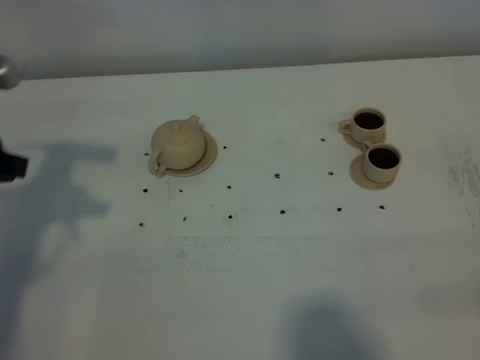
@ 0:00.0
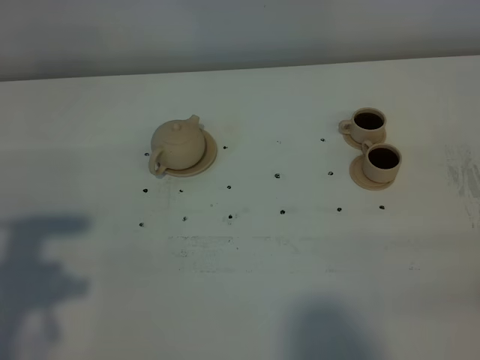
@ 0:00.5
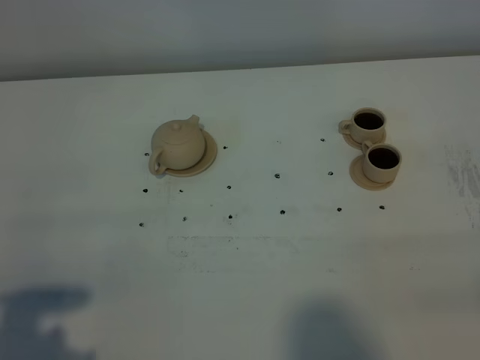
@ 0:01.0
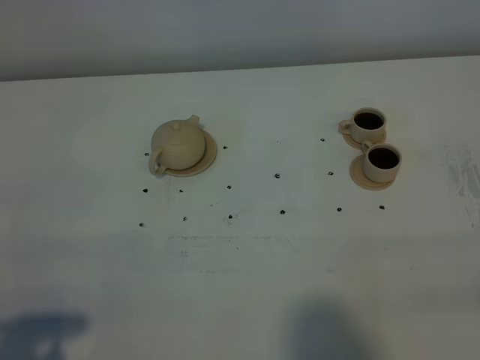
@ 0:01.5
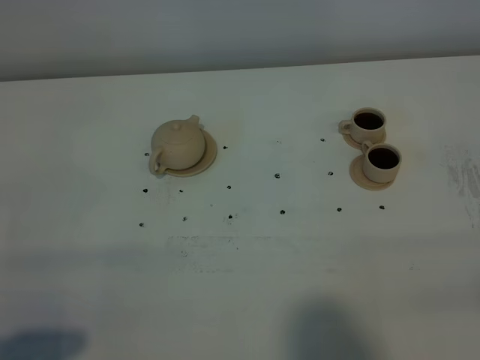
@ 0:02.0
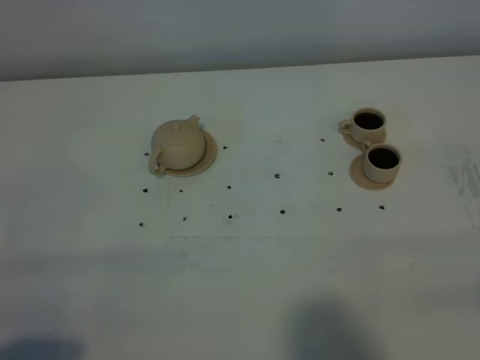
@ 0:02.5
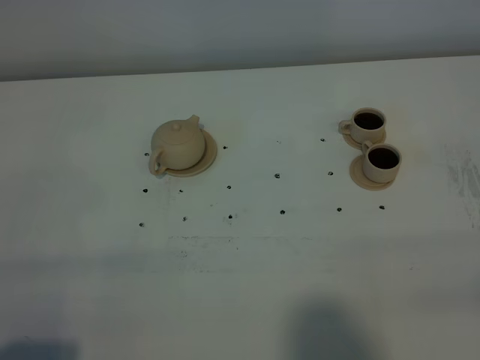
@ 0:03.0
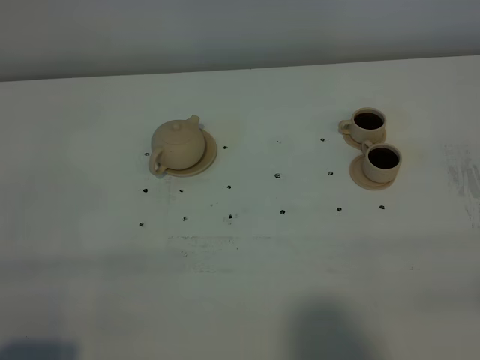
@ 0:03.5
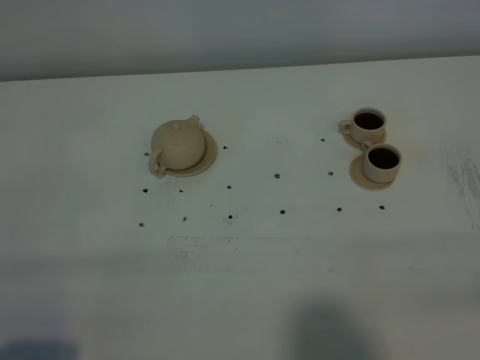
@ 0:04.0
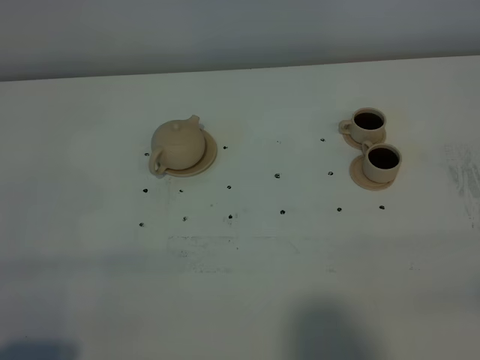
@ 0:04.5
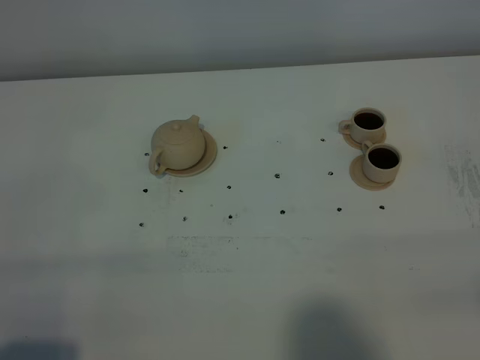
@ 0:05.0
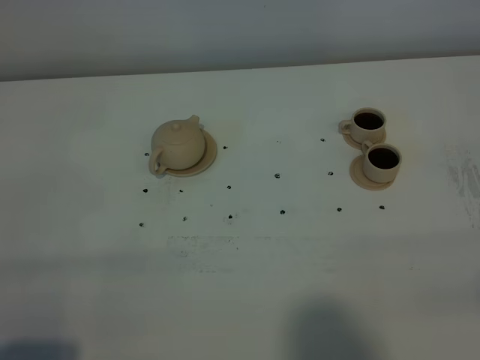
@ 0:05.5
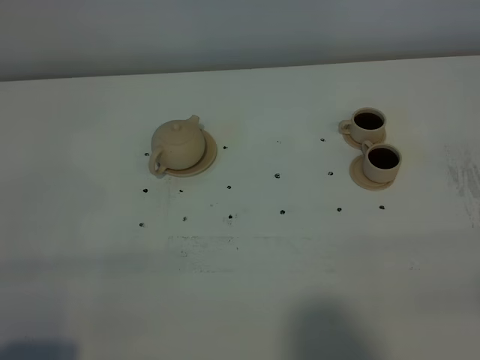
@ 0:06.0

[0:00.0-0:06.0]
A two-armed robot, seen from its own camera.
Task of the whole recording: grasp the brown teapot and pour the tea into the two brown teacups one by one, put the brown teapot back in its original place.
0:00.0 to 0:02.0: The left gripper moves backward, some 25 cm.
0:02.0 to 0:06.0: Neither gripper changes place.

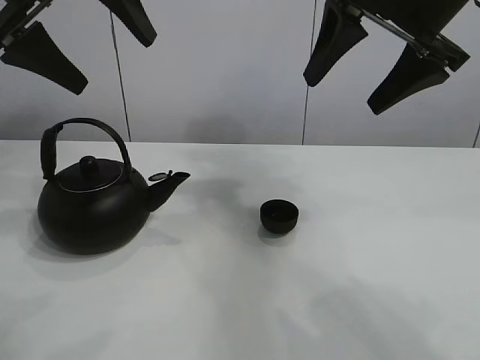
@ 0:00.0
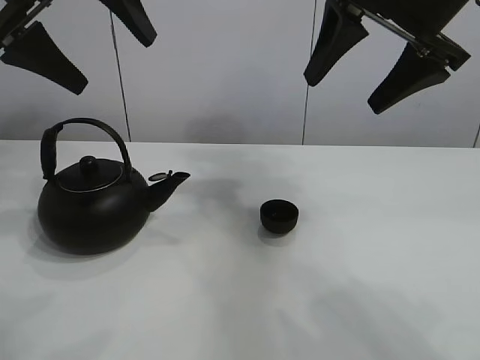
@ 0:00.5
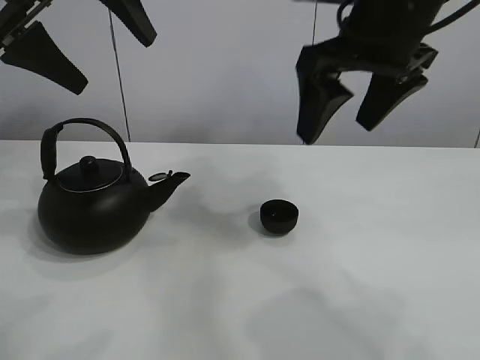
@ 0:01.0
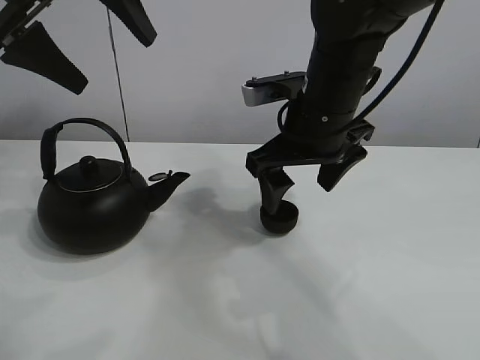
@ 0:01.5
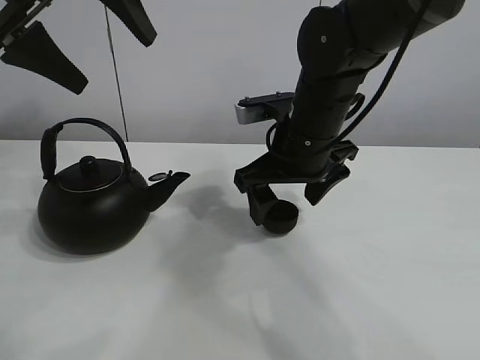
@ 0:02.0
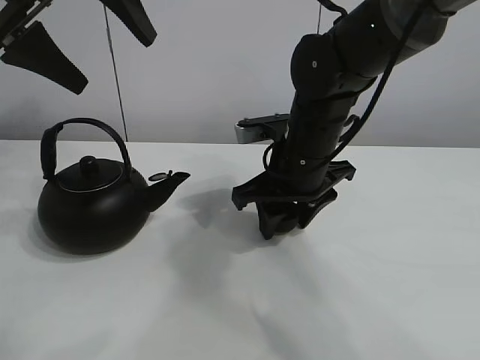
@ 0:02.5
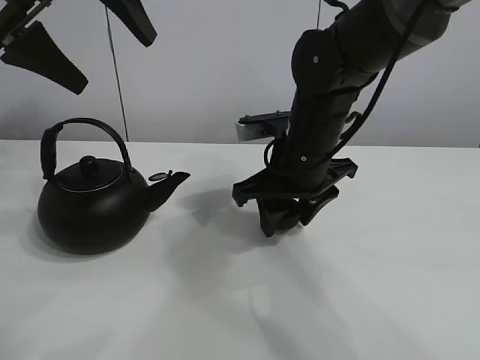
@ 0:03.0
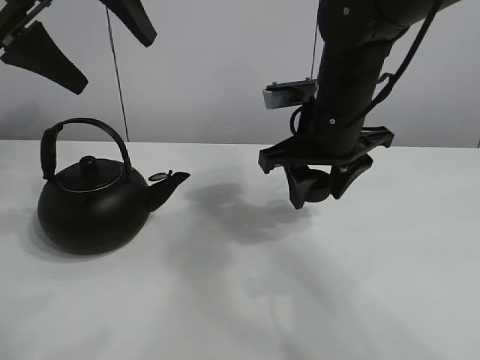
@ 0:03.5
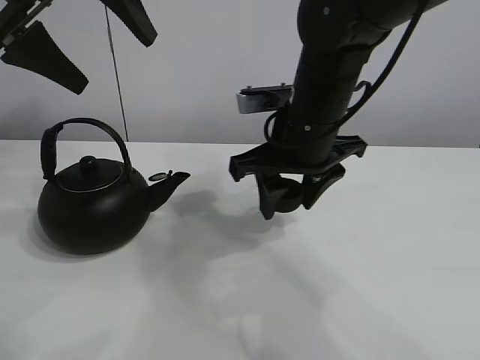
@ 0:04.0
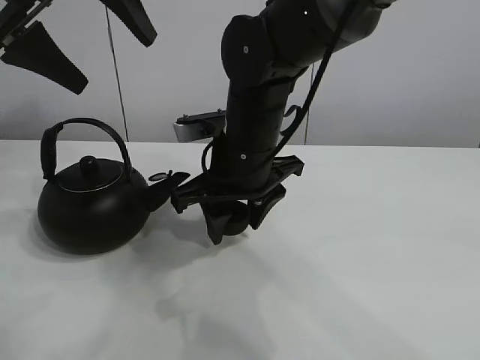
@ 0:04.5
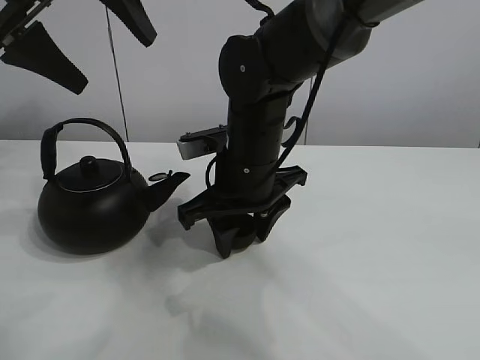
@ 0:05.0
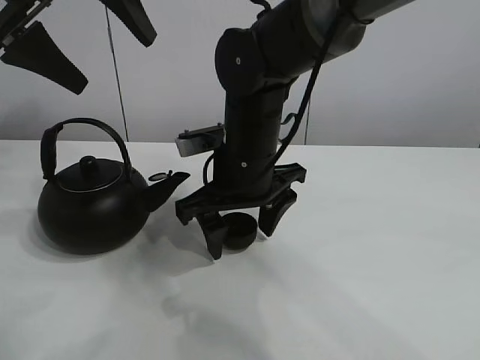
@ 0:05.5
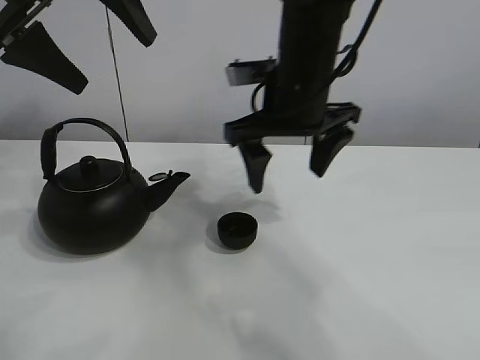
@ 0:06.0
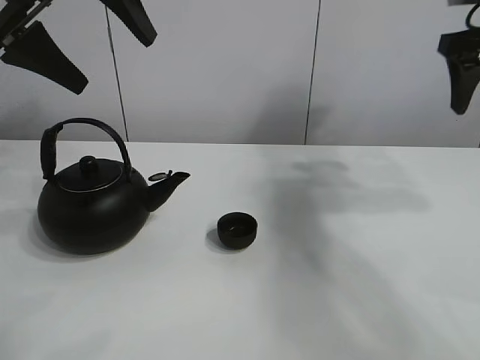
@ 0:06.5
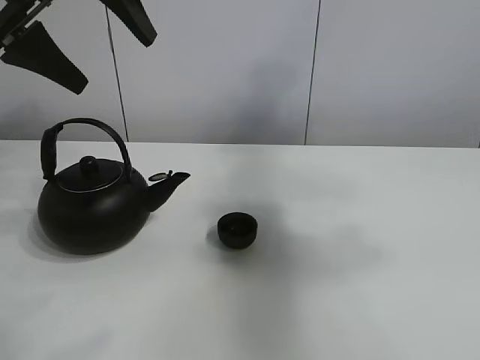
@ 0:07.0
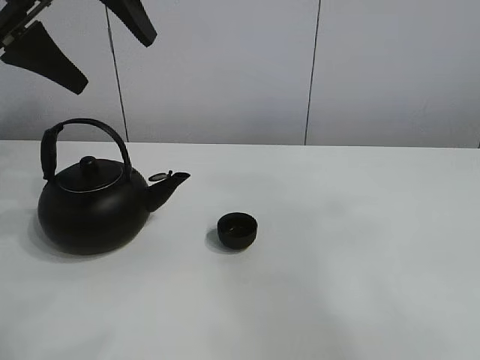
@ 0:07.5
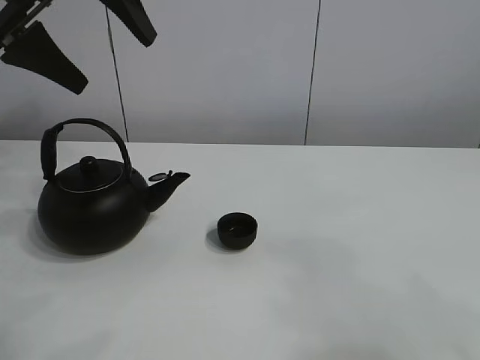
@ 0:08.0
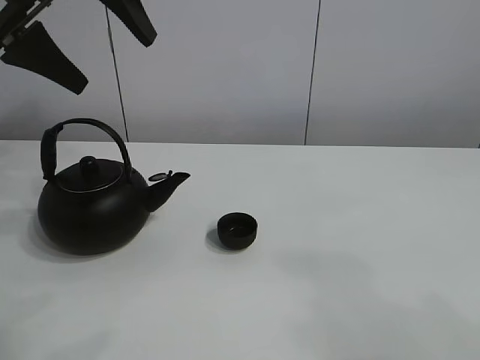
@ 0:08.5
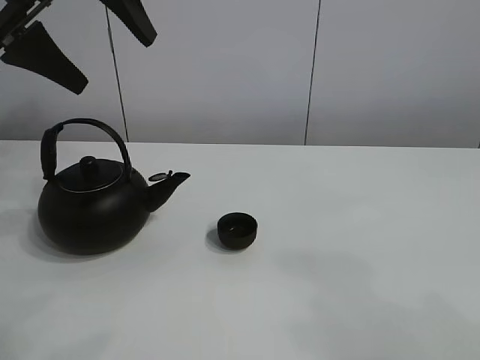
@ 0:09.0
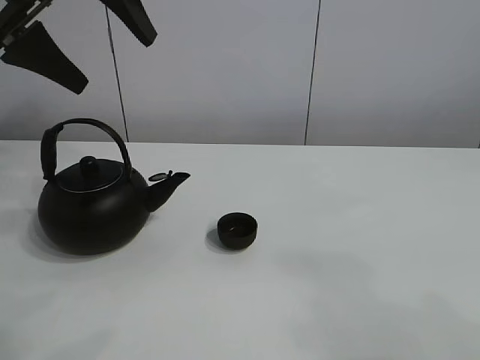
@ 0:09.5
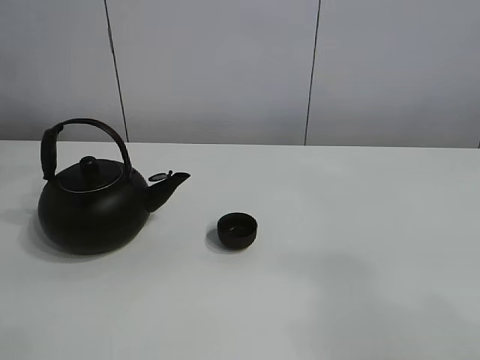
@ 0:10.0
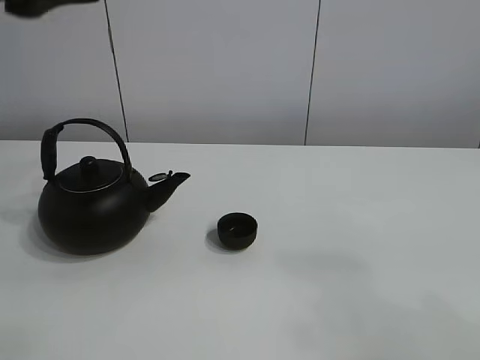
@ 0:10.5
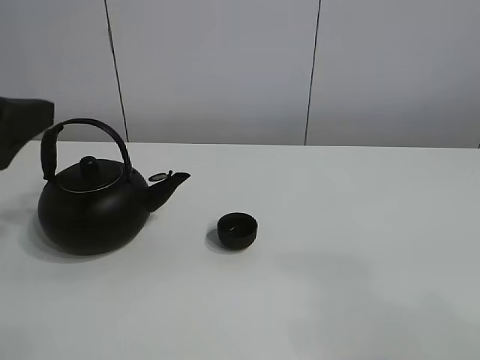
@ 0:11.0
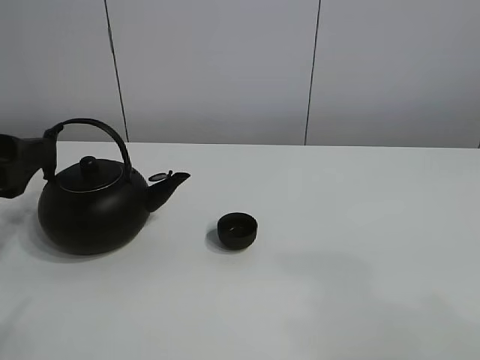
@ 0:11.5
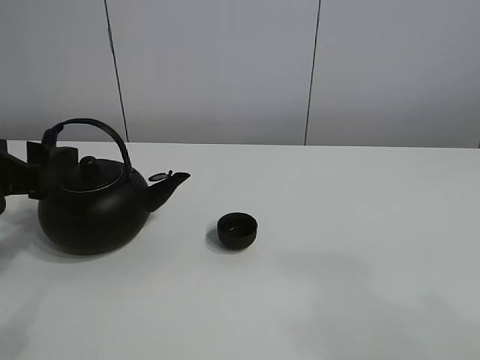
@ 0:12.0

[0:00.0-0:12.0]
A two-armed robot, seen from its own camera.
Task of the whole recording: pour tea into the teacup.
Step, 0:00.0 to 0:02.5: Pick up the teacup with the right gripper.
Step, 0:03.5 to 0:05.0: Place the teacup in the center of view with the right gripper.
0:02.0 to 0:04.0: The right gripper closes up.
0:04.0 to 0:06.0: The right gripper opens its fingers.
0:06.0 to 0:08.0: The right gripper is displaced backward and to the right by roughly 40 cm.
0:08.0 to 0:10.0: The left gripper is displaced upward by about 10 cm.
0:10.0 to 0:12.0: The left gripper shifts approximately 25 cm downward.

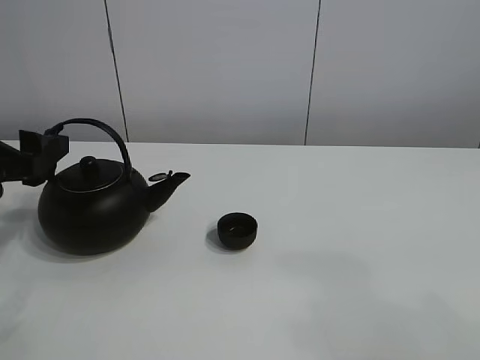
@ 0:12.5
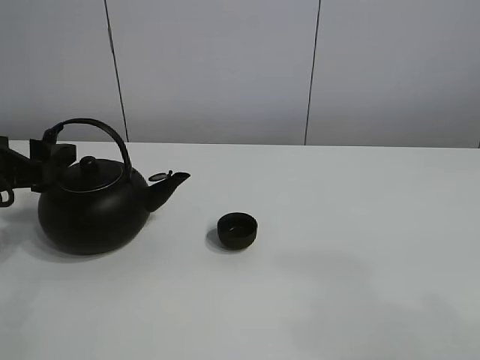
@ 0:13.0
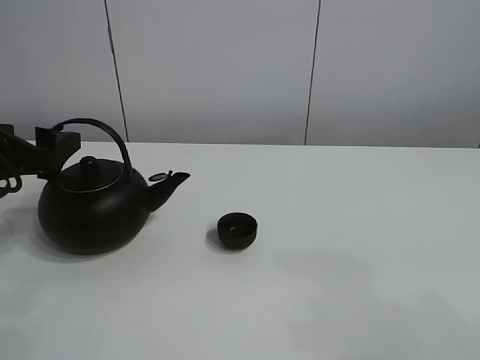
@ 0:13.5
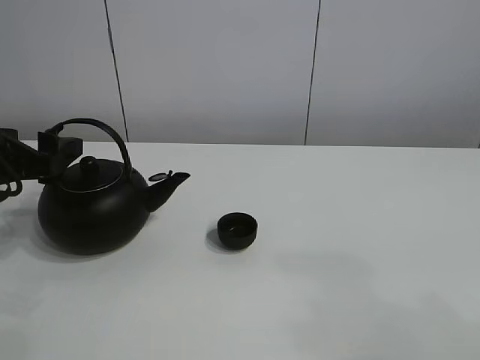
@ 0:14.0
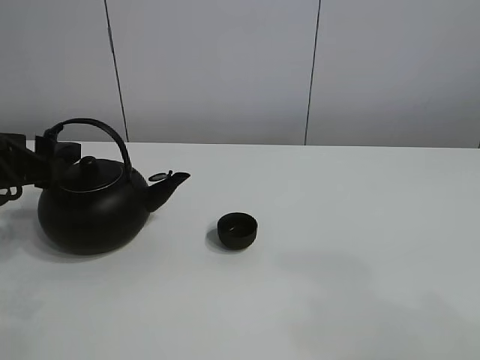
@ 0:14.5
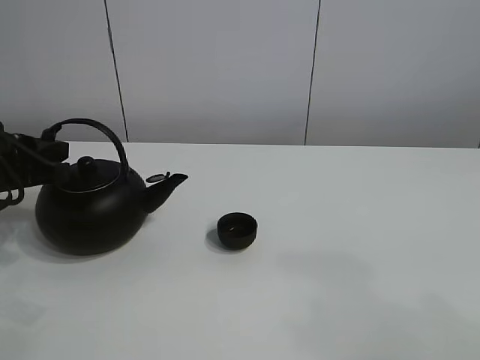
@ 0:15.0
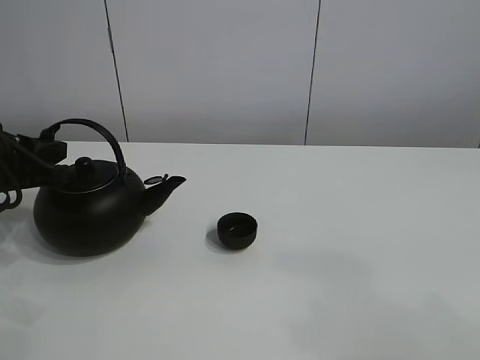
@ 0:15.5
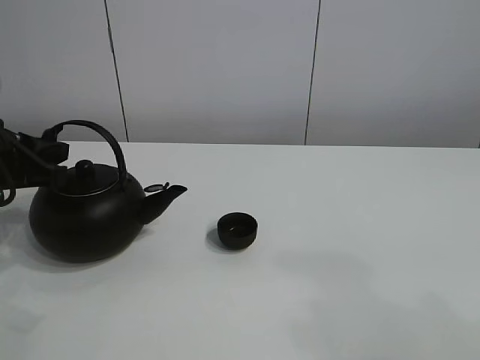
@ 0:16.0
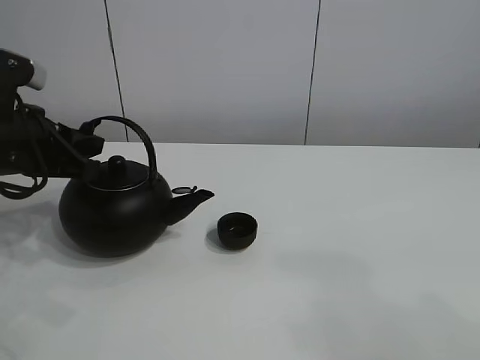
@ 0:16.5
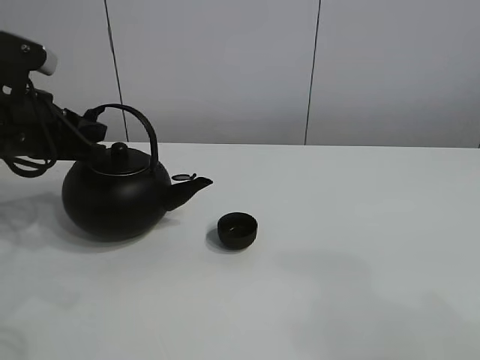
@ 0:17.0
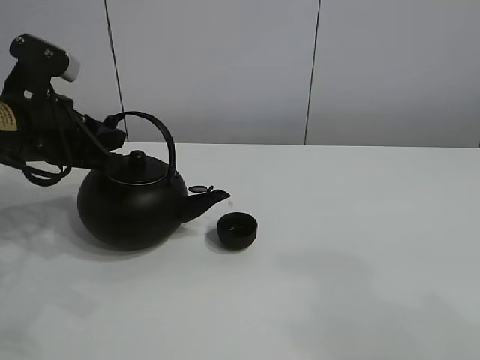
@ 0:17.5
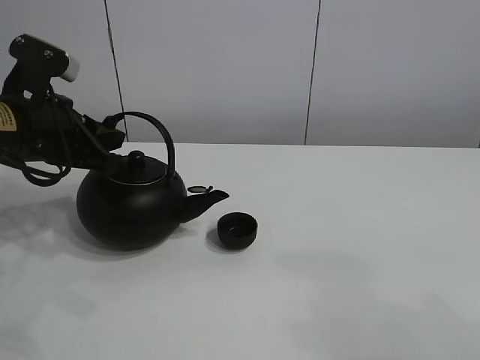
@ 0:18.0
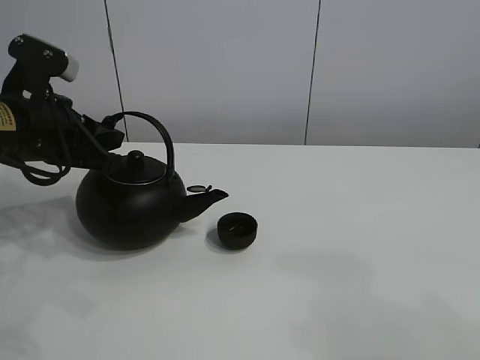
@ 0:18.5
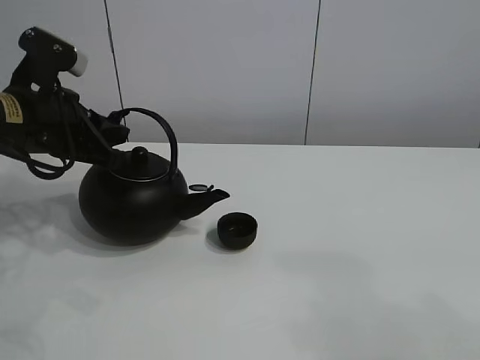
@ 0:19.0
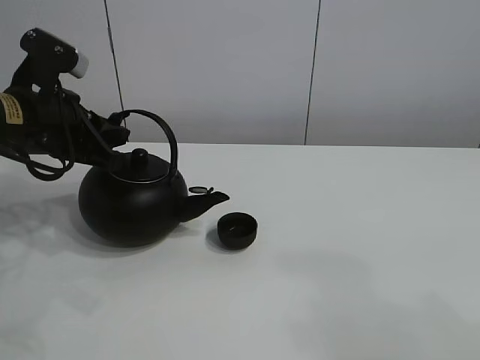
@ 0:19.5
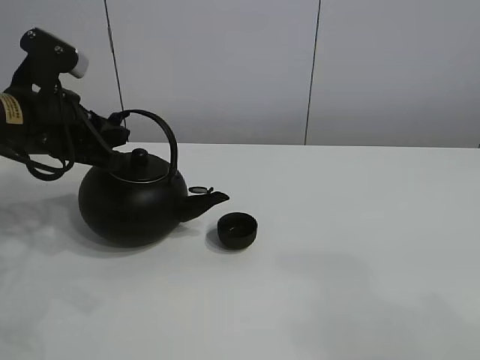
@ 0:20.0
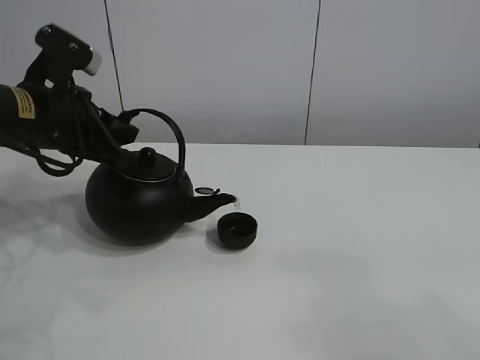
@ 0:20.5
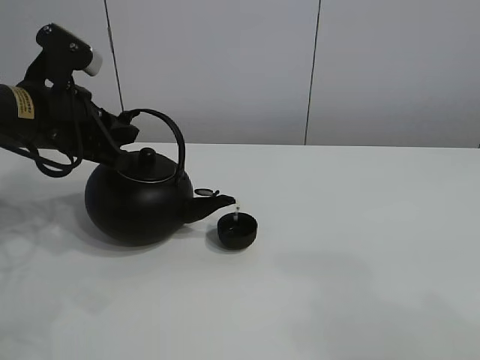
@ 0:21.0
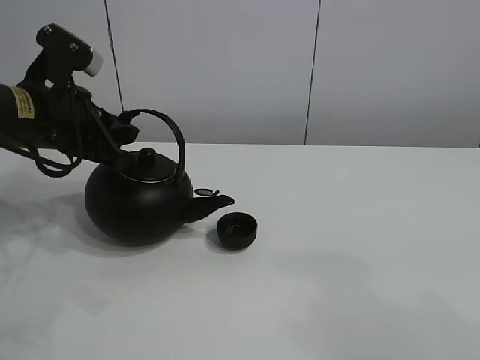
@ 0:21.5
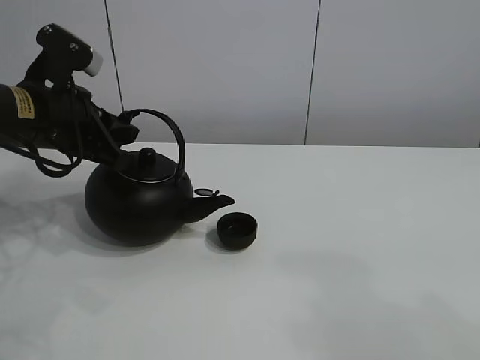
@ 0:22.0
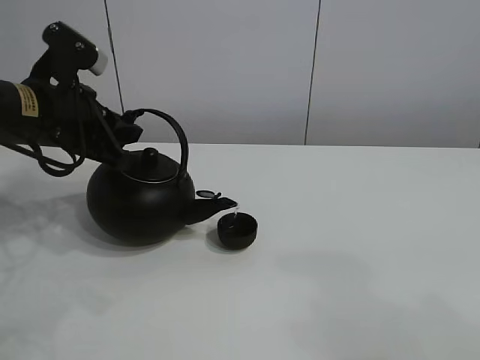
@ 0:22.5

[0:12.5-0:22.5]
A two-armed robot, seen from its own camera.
Task of the whole recording: pour tea into the teacup.
Step, 0:12.5 to 0:16.5: Pick up the teapot with the left gripper.
0:12.5 to 0:14.5: The grippers make only small movements.
0:14.5 to 0:16.5: The left gripper closes.
0:16.5 to 0:20.5: The grippers stay close to where they were, moving slightly.
0:20.5 to 0:22.5: Neither gripper changes place.
